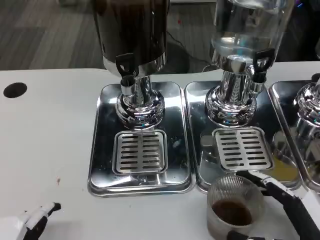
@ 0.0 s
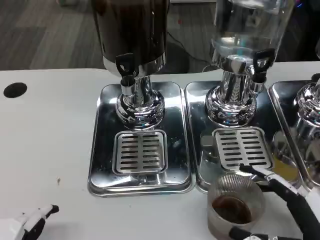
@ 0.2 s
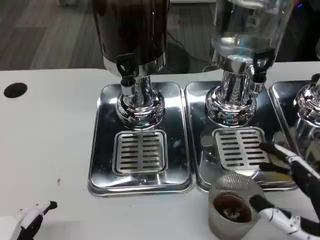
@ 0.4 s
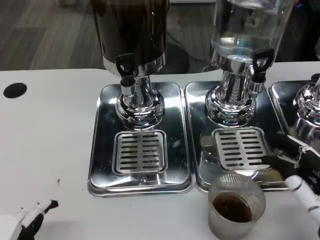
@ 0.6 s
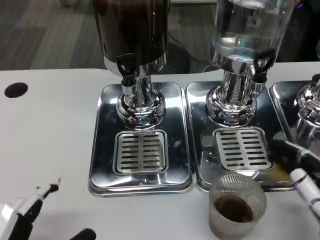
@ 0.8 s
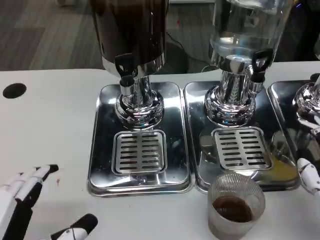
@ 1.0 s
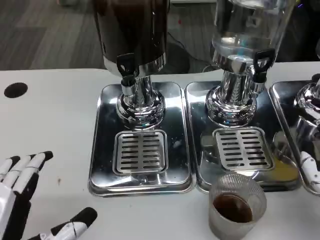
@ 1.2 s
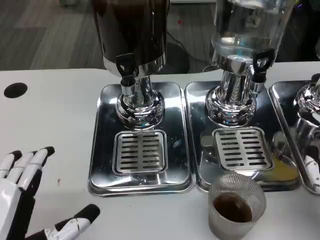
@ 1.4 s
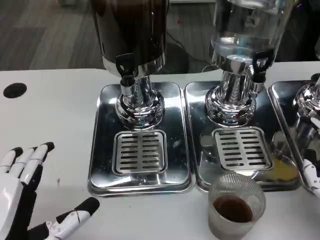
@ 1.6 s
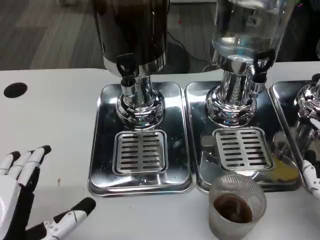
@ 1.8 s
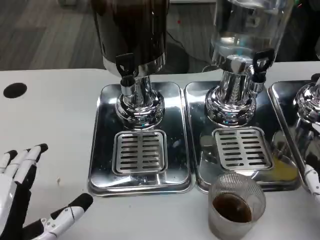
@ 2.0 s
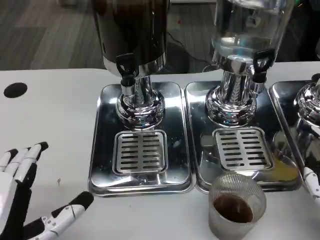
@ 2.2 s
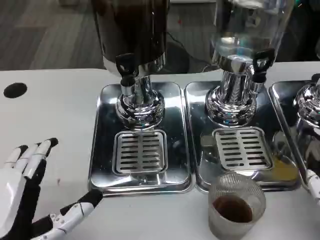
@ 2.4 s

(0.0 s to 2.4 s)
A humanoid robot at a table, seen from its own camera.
Task of the whole recording: Grasp the cup under the faucet to collect the drink, then remove the cup.
0.0 s - 1.2 s: The right hand moves upward, approximately 5 cm.
1.2 s - 2.4 s: The hands stay close to where they were, moving slightly.

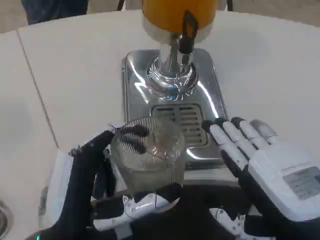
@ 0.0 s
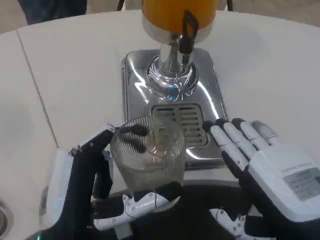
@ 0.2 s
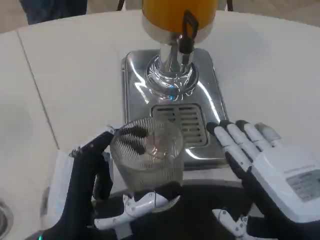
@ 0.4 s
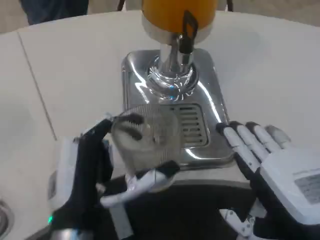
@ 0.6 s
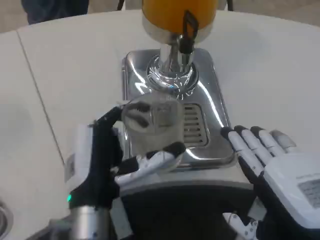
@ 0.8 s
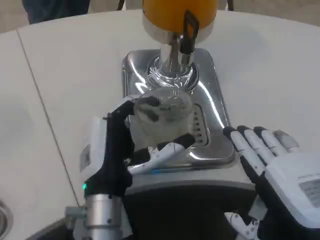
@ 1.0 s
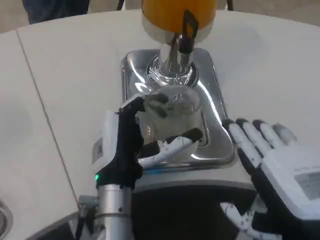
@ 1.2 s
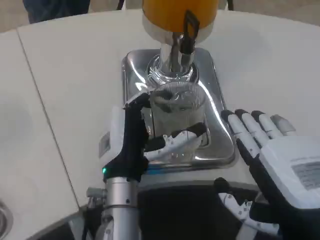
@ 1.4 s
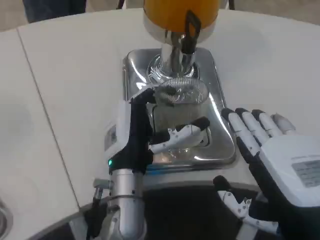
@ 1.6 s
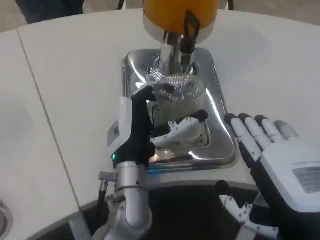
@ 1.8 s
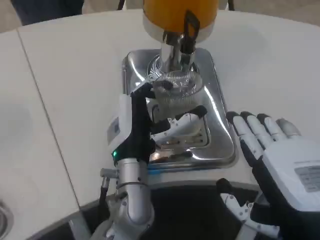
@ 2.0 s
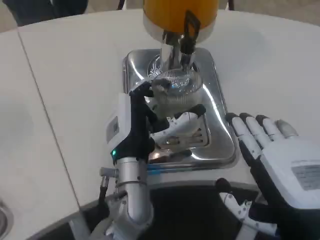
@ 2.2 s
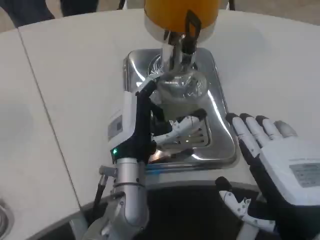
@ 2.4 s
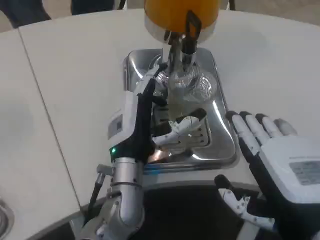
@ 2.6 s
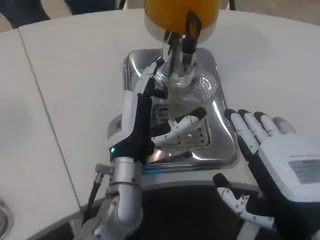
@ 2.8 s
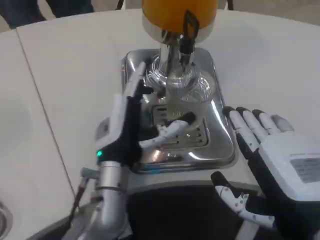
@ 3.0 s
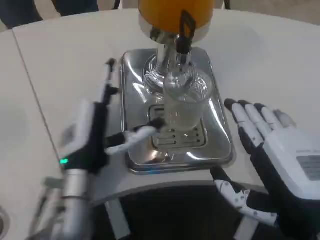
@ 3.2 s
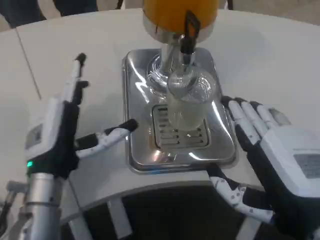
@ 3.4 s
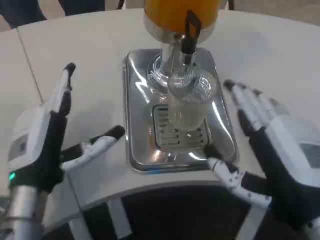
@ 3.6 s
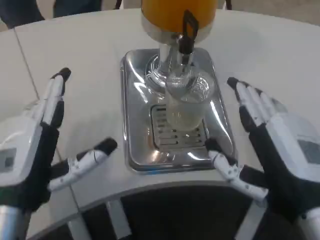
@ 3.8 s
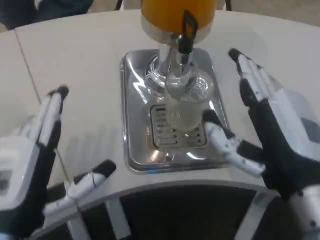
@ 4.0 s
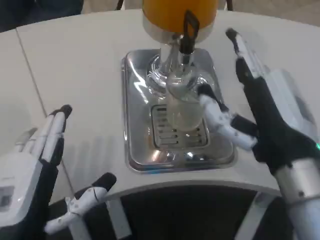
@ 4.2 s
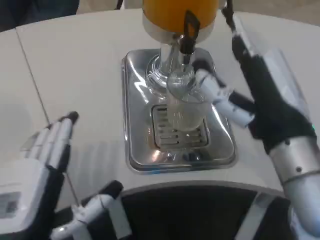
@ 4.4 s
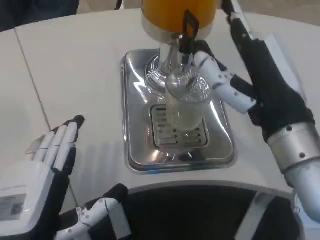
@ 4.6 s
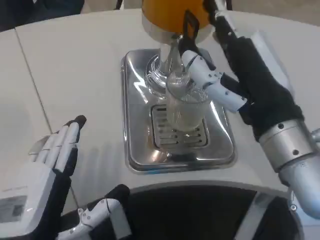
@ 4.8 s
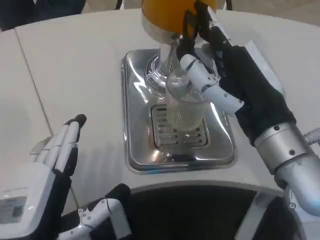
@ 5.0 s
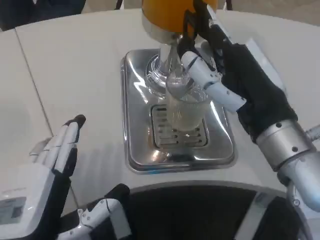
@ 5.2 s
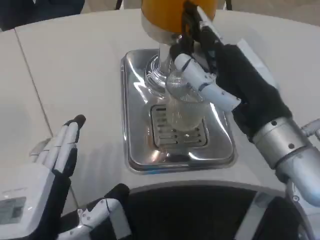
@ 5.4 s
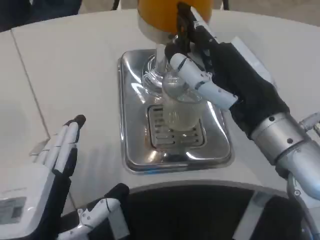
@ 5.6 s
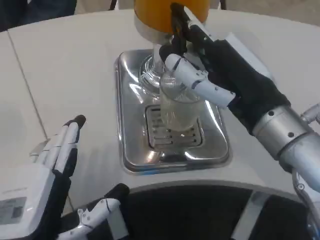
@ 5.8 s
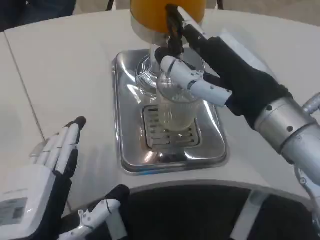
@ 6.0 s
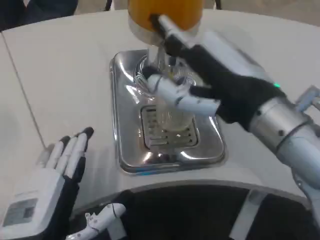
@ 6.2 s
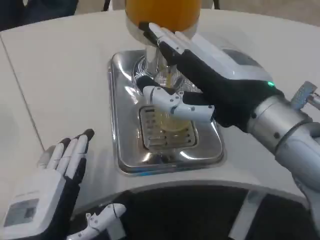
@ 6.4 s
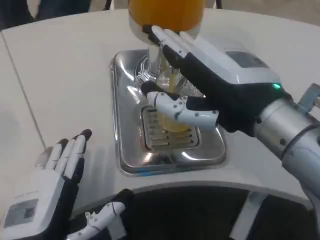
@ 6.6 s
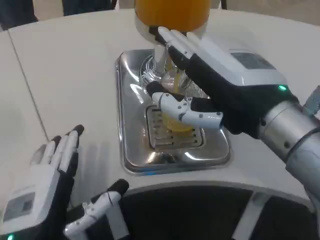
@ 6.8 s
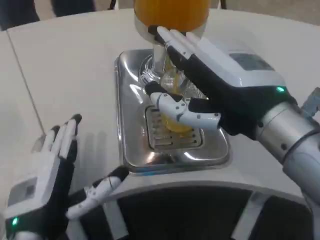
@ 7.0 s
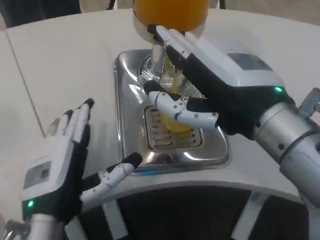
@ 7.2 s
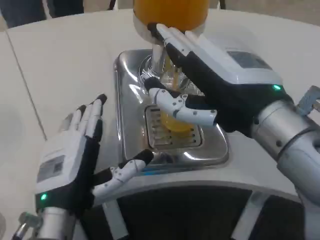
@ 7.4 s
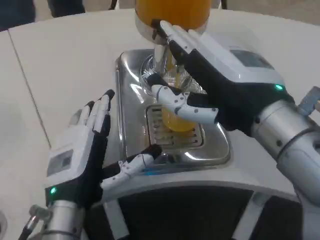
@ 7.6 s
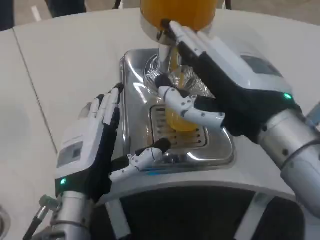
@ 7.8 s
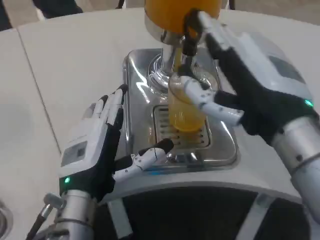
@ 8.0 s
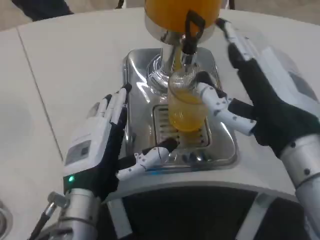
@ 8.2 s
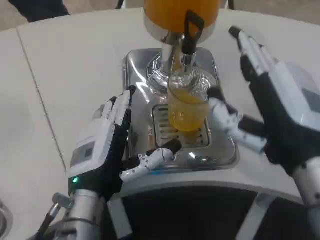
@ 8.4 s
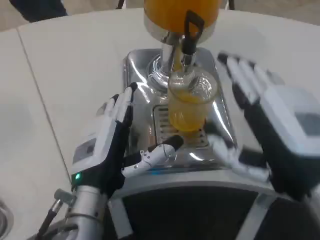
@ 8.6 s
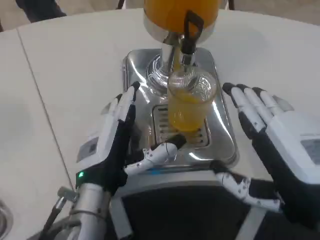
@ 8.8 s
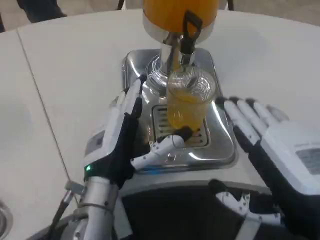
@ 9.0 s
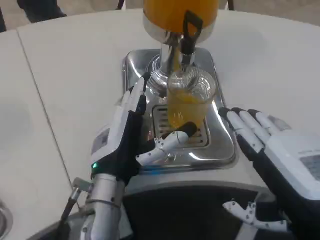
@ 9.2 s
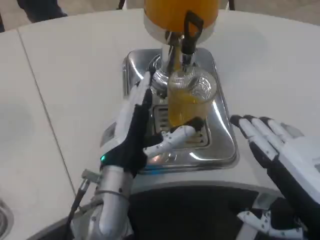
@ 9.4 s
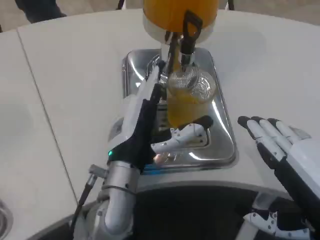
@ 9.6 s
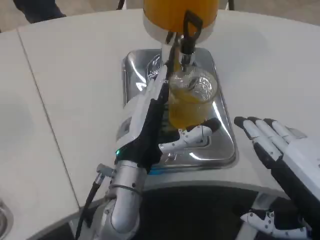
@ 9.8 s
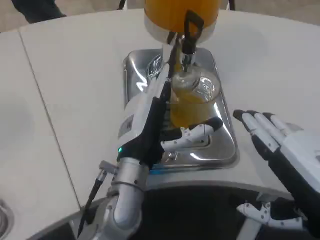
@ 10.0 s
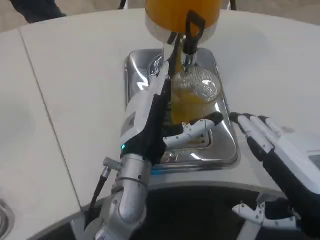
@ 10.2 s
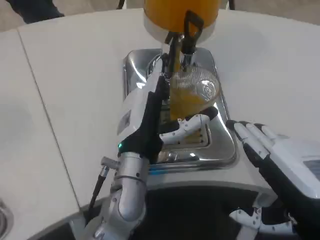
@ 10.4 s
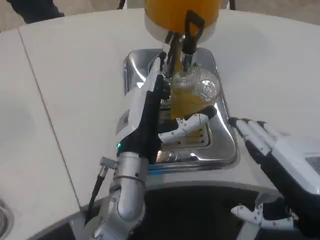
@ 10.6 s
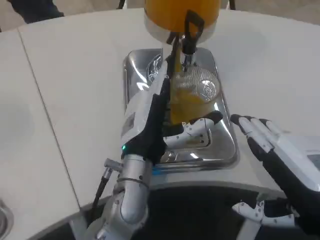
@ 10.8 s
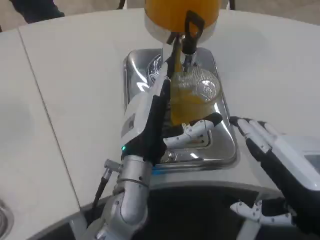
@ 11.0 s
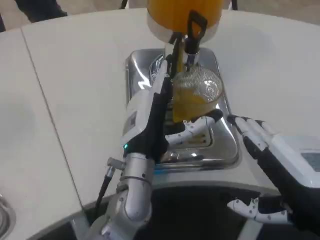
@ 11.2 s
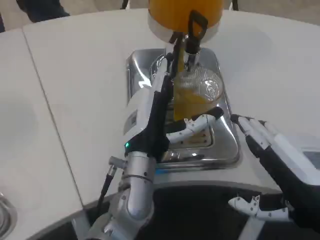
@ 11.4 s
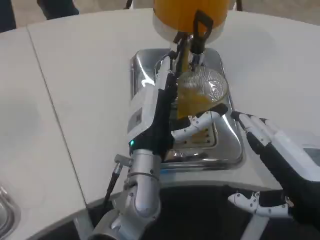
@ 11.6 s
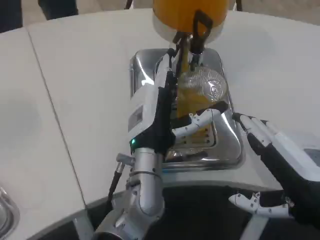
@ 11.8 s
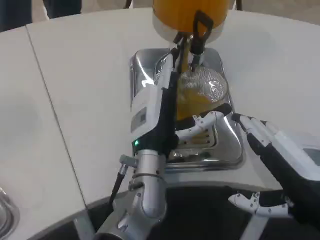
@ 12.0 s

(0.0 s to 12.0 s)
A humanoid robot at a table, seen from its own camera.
Task of the whole recording: Grasp the cup under the faucet to collect the drink, then remove the cup.
0.0 s - 1.6 s: The left hand heads forward and to the right, covering some 15 cm.
1.6 s - 3.0 s: There are only small adjustments of the hands.
3.0 s - 4.4 s: The left hand moves backward and to the left, roughly 20 cm, while the right hand heads forward, covering some 10 cm.
6.0 s - 7.6 s: The left hand travels forward by approximately 10 cm.
7.6 s - 9.0 s: The left hand shifts by approximately 5 cm; the right hand shifts approximately 10 cm downward, backward and to the right.
9.0 s - 10.4 s: The left hand shifts by approximately 5 cm.

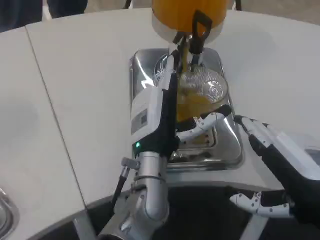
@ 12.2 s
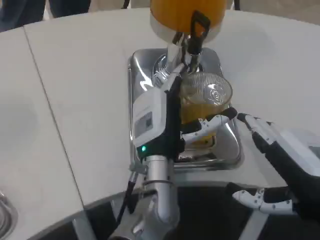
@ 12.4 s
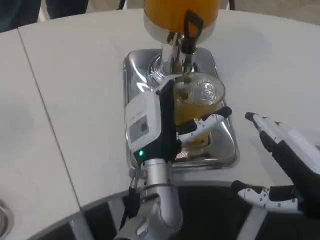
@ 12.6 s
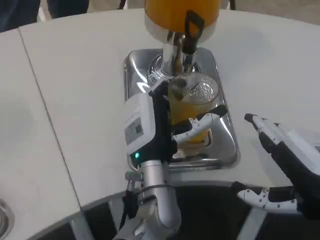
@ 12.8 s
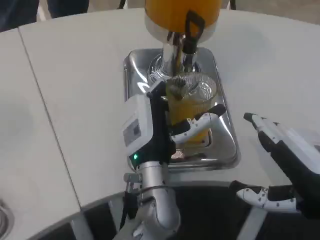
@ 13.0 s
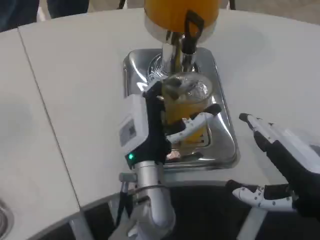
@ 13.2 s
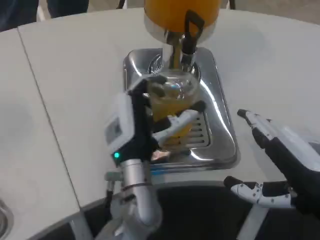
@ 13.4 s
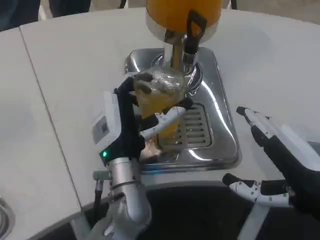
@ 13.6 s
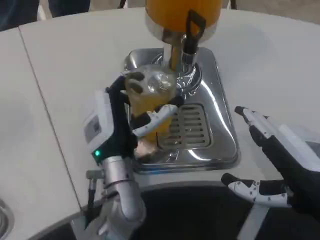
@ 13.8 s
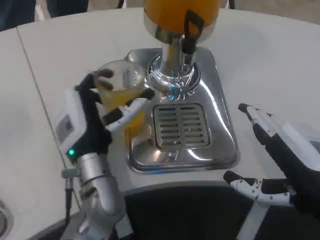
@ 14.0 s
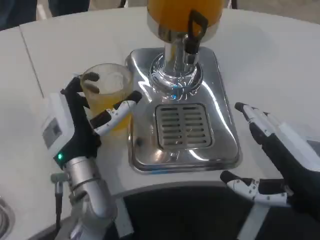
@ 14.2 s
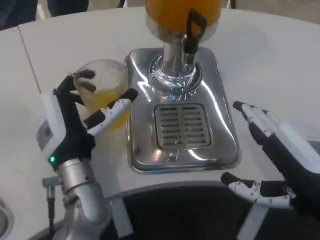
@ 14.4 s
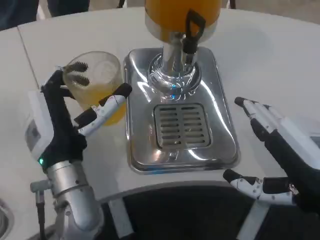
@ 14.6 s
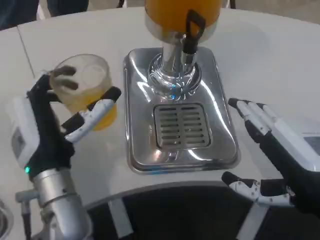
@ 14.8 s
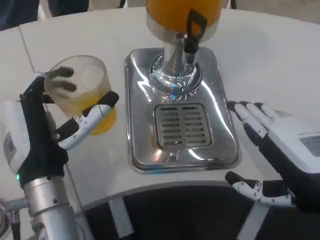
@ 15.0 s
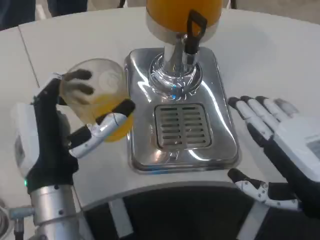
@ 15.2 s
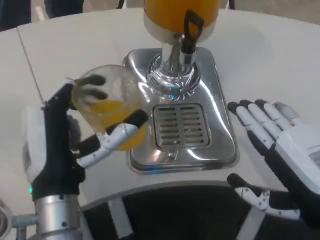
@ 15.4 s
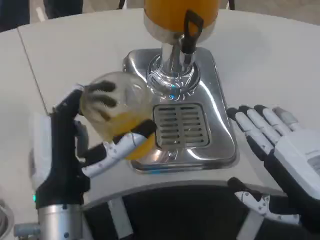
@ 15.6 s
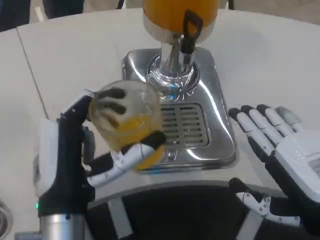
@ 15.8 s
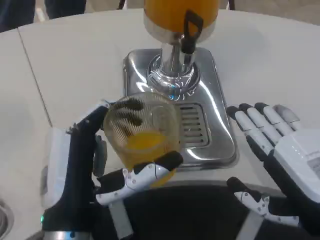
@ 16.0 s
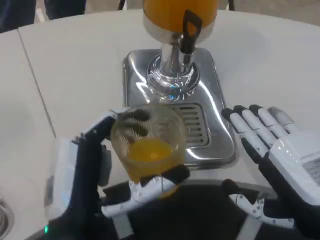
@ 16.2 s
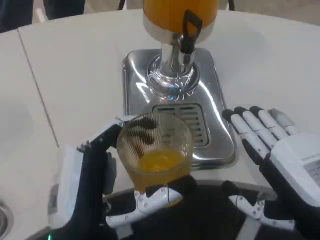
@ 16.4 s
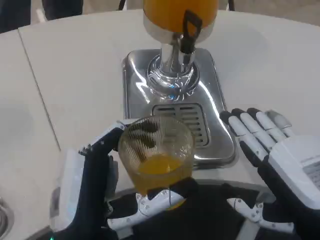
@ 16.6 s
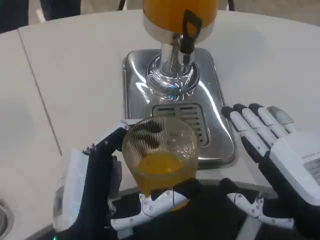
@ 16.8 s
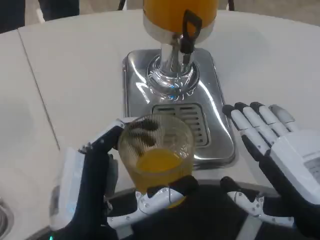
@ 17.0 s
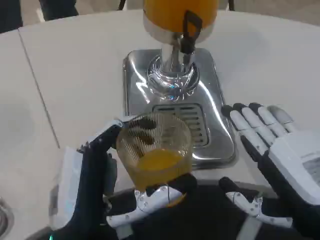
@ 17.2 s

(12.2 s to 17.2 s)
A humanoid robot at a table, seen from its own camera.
Task of the whole recording: Grasp the cup under the faucet to collect the drink, then remove the cup.
13.8 s - 15.6 s: The left hand shifts some 15 cm backward and to the left.
15.6 s - 17.2 s: The left hand heads backward, covering some 5 cm.

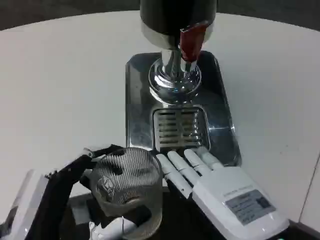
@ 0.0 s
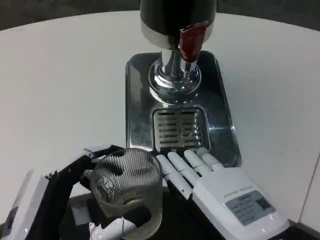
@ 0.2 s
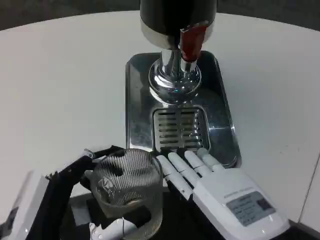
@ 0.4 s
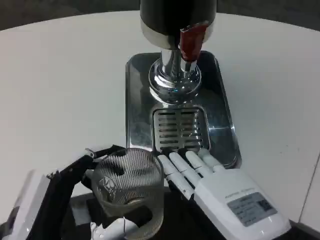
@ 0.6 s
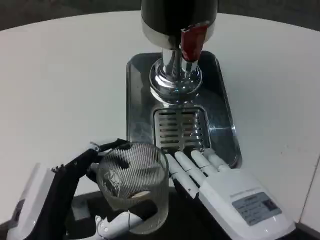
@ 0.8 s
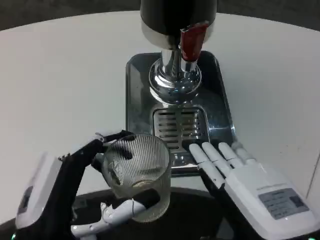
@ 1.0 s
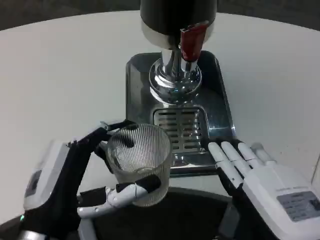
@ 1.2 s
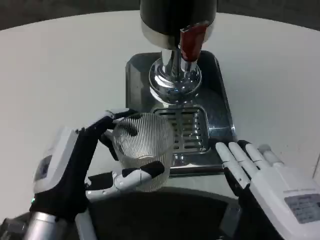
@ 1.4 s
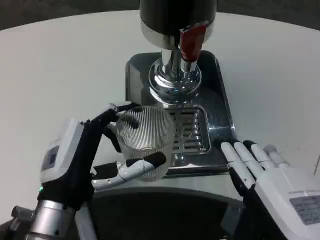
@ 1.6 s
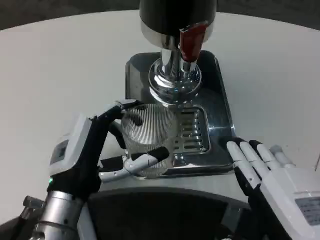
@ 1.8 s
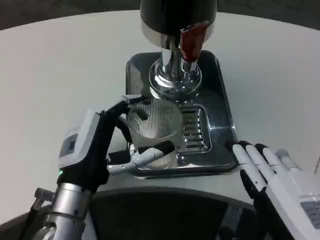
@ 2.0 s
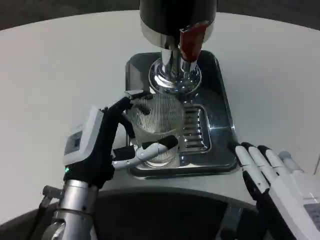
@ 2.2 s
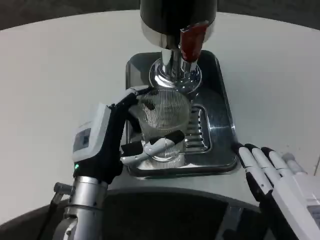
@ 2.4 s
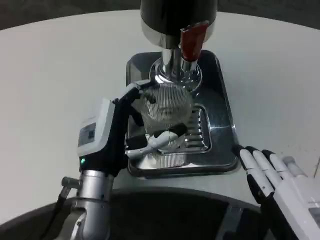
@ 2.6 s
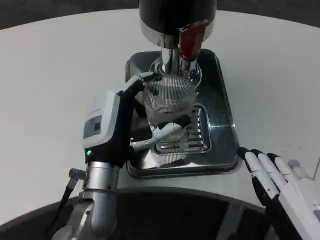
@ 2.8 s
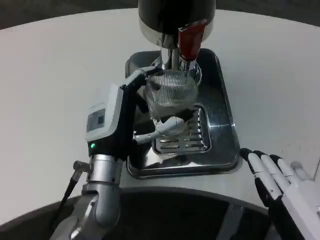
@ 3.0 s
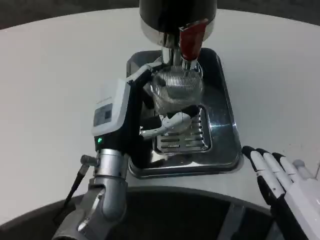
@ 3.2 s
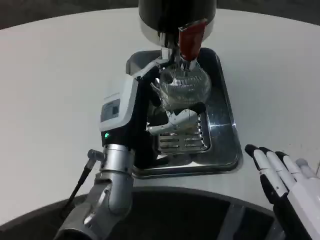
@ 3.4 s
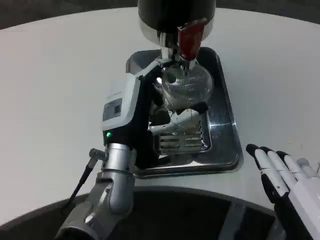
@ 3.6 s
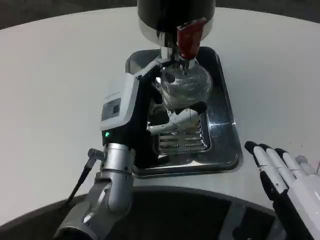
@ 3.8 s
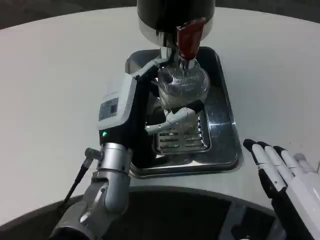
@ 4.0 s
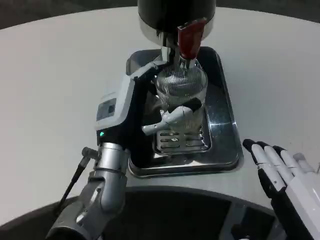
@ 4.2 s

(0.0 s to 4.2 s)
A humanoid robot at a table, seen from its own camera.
Task of the whole recording: Grasp the cup under the faucet to collect the drink, then remove the cup.
0.0 s - 1.4 s: The left hand moves forward, approximately 10 cm.
1.4 s - 2.8 s: The left hand goes approximately 10 cm forward and to the right.
